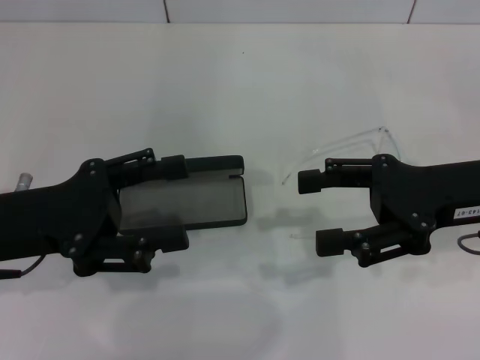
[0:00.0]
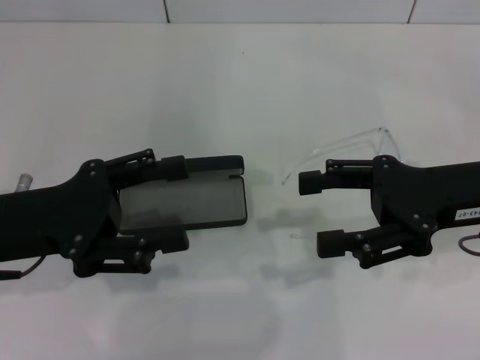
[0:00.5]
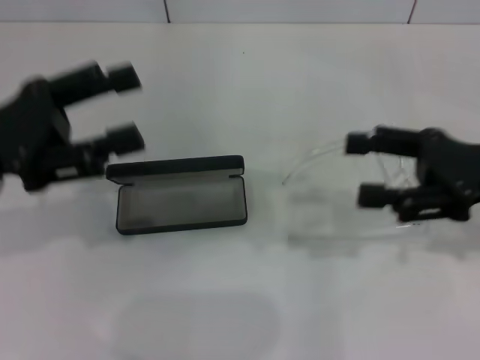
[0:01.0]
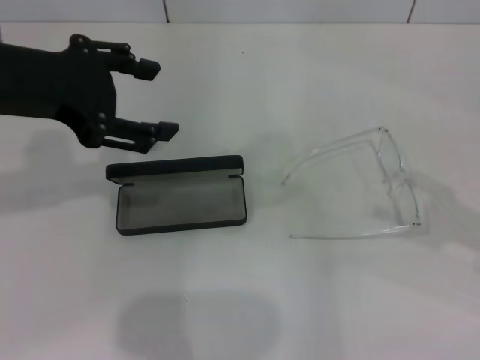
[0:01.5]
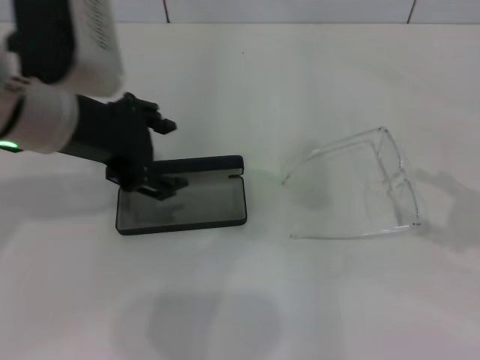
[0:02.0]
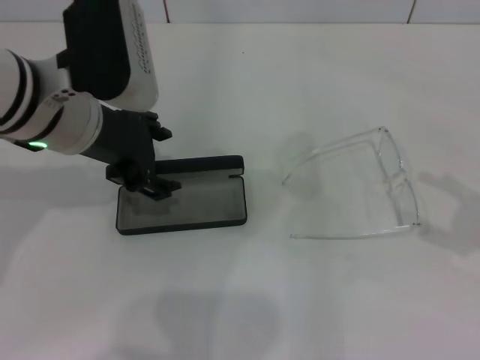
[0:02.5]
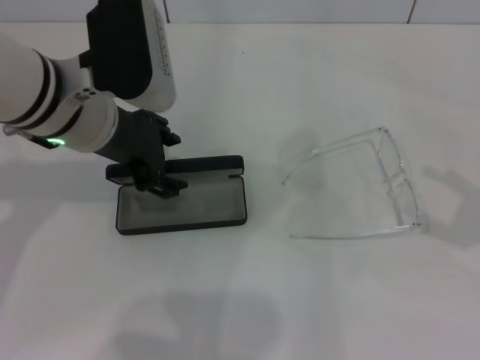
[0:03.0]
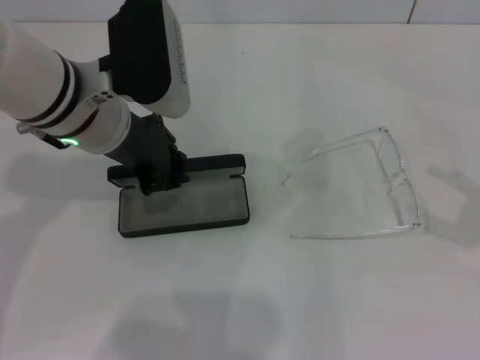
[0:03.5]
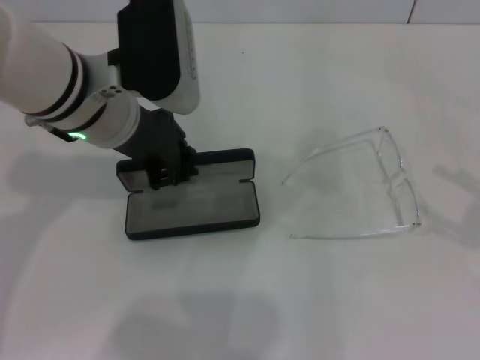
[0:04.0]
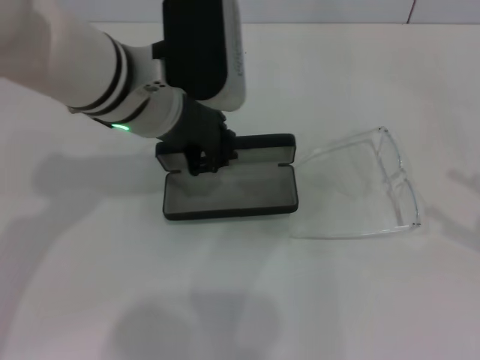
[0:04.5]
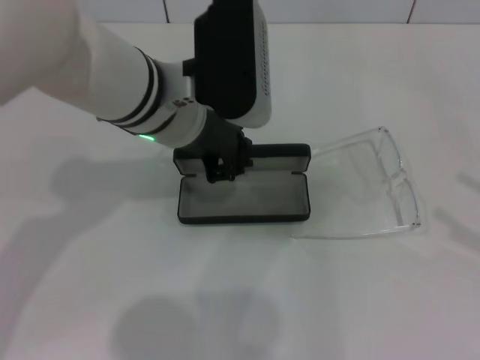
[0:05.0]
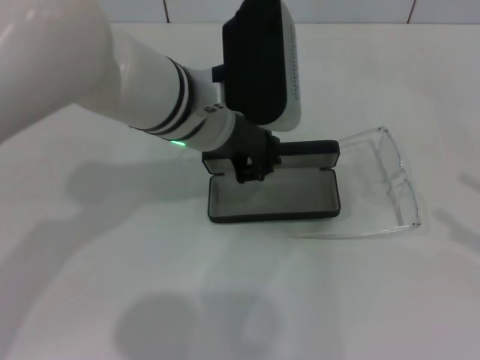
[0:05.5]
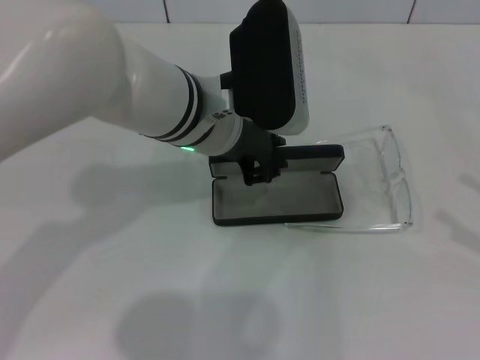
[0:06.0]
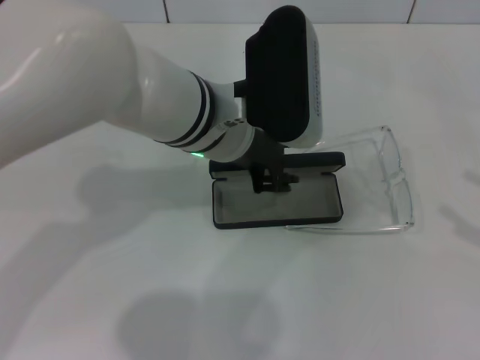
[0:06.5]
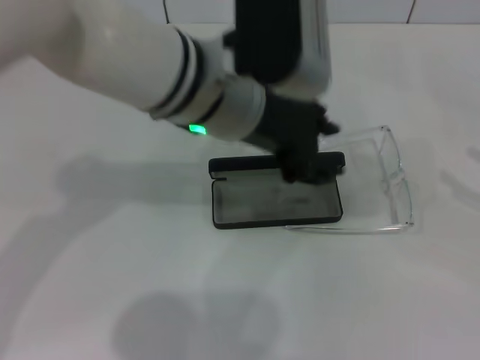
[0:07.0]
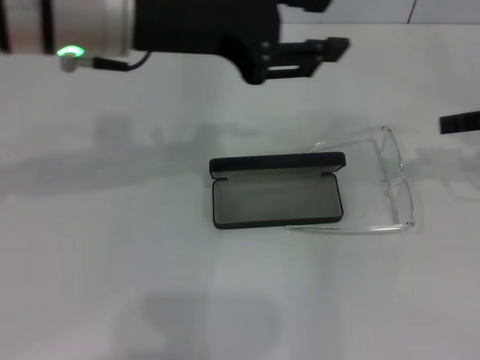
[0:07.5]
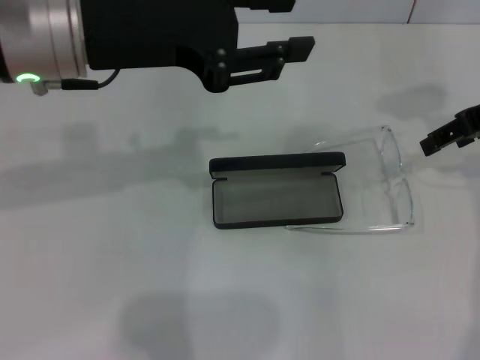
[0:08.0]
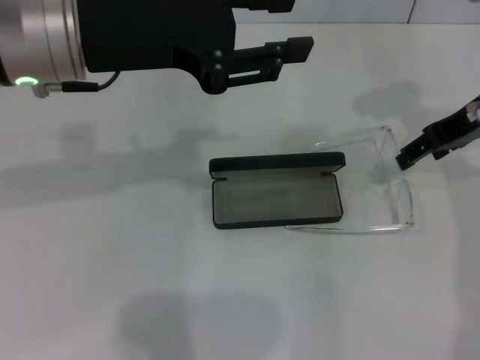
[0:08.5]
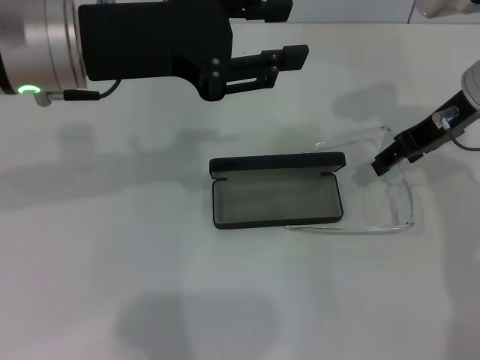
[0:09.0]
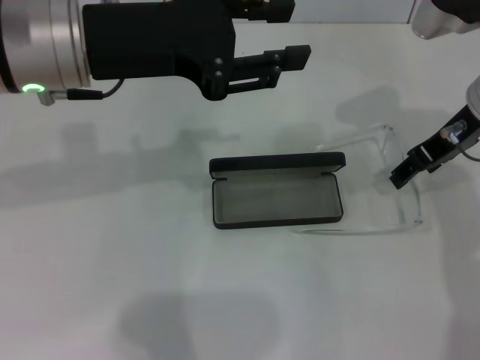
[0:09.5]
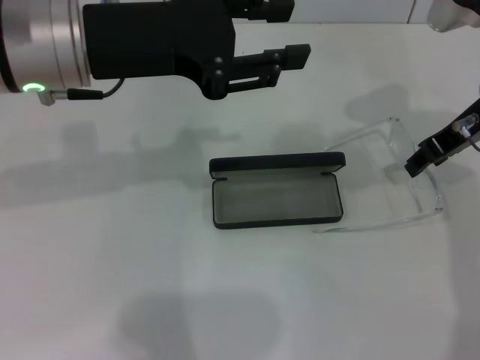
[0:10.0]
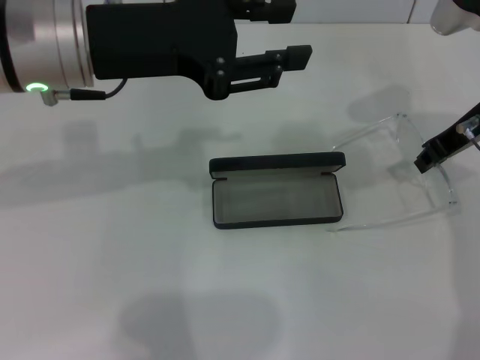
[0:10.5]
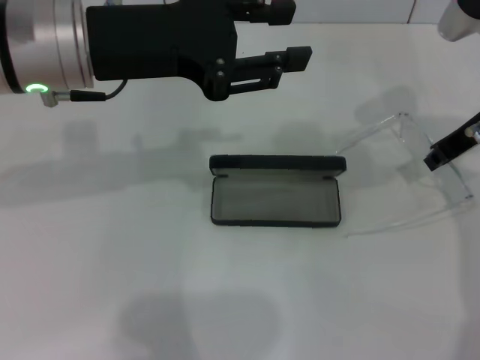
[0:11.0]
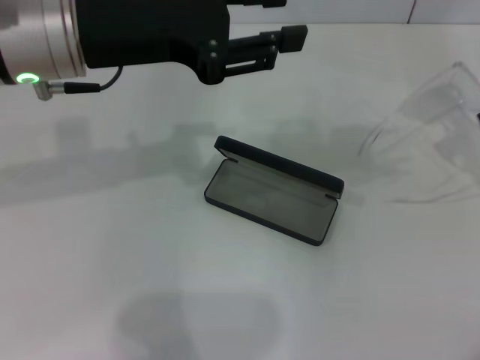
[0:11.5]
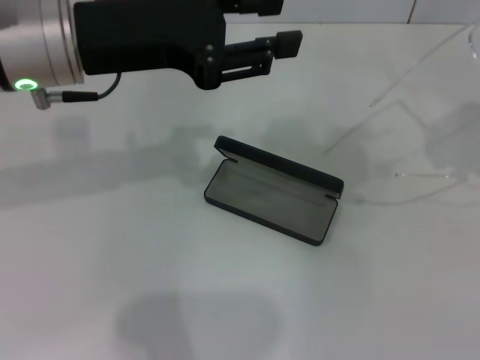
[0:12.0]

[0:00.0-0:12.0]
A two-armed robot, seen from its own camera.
Step, 0:00.0 to 0:03.0: Grab the glasses case with your left hand.
Step, 0:04.0 to 0:06.0: Place the glasses case in the center of the table with your left hand.
Step, 0:06.5 to 0:10.0: Grab the eyeglass frame with your right hand.
0:00.0 to 0:02.0: The left gripper moves upward, to the right and forward, approximately 15 cm; the right gripper is displaced to the right and backward by about 15 cm.
0:02.0 to 0:04.0: The left gripper changes place by approximately 5 cm, and closes its fingers.
0:04.0 to 0:06.0: The left gripper heads to the right, covering some 10 cm.
0:06.0 to 0:08.0: The left gripper moves to the left and upward, roughly 15 cm, and opens its fingers. Meanwhile the right gripper shifts roughly 25 cm forward, to the left and upward.
0:08.0 to 0:10.0: The right gripper shifts by roughly 5 cm.
0:10.0 to 0:12.0: The right gripper goes roughly 15 cm to the right, upward and backward, and closes up.

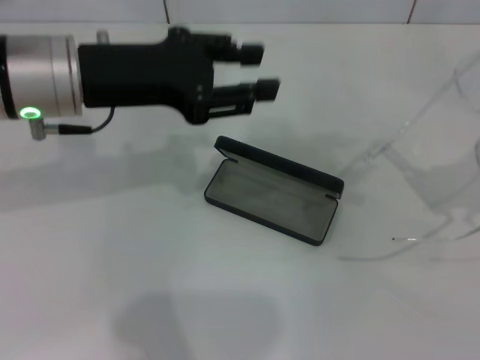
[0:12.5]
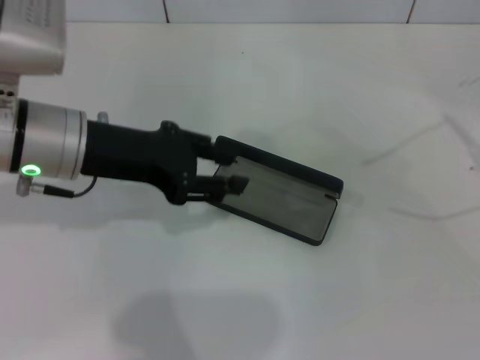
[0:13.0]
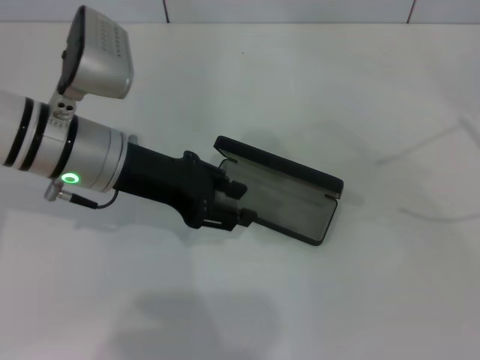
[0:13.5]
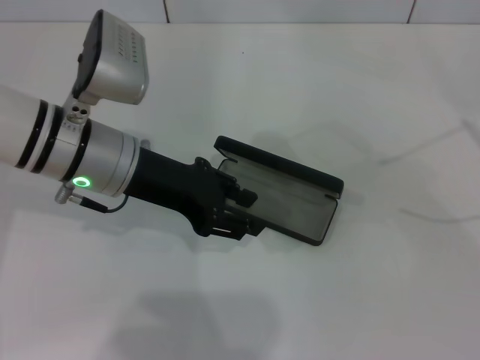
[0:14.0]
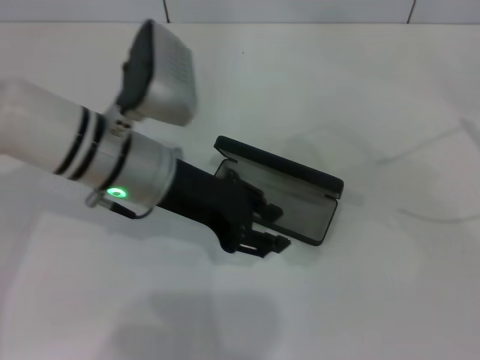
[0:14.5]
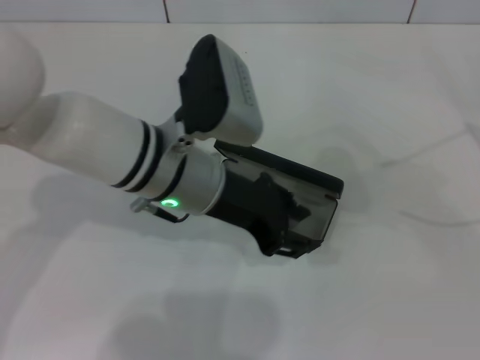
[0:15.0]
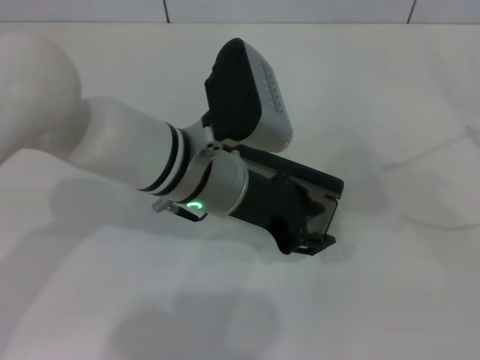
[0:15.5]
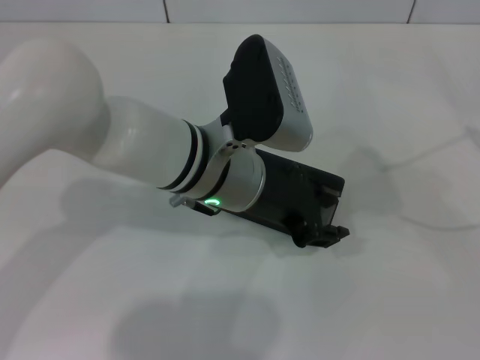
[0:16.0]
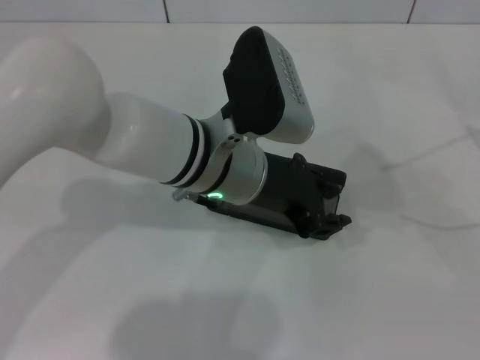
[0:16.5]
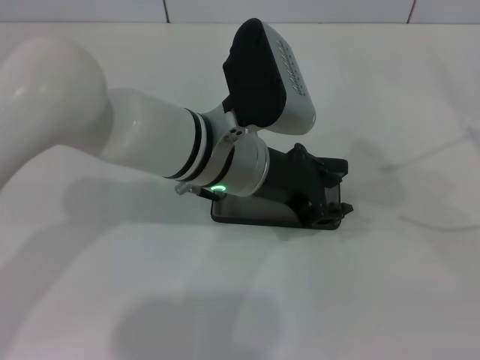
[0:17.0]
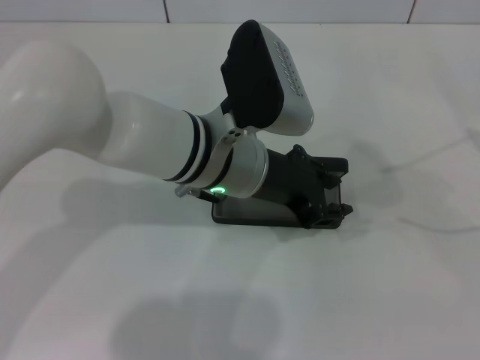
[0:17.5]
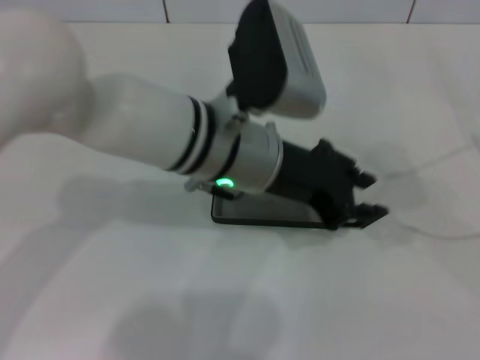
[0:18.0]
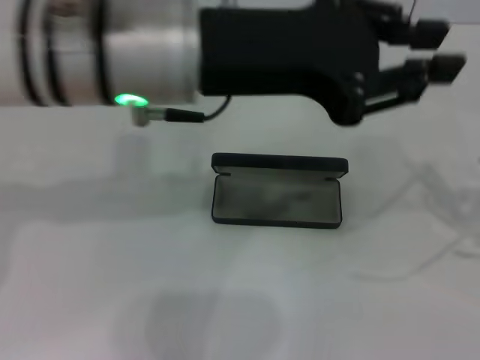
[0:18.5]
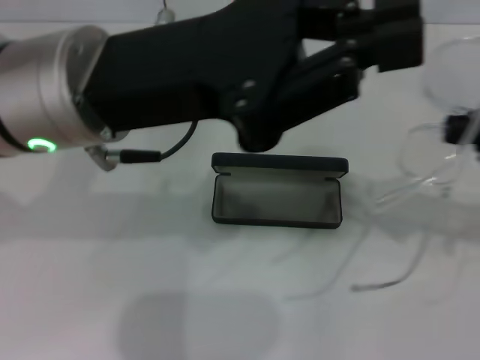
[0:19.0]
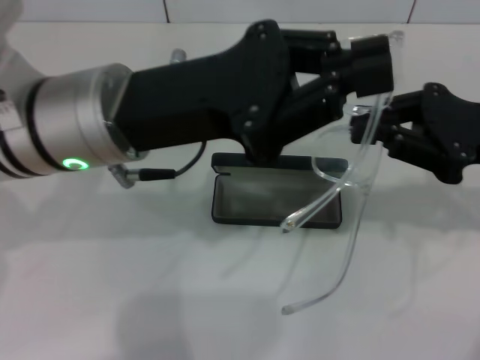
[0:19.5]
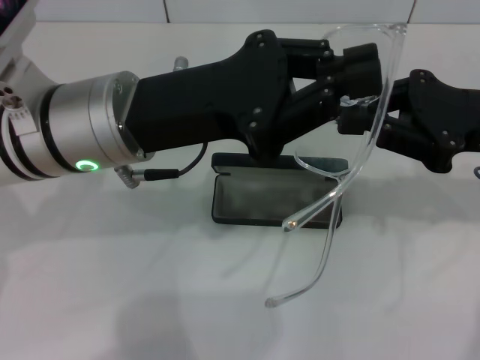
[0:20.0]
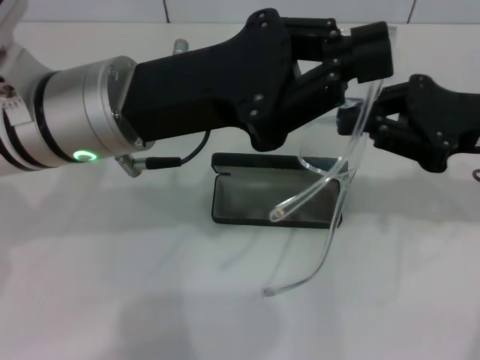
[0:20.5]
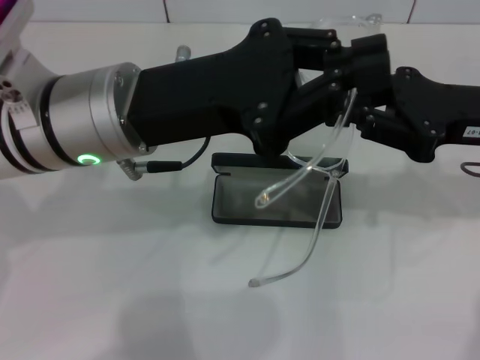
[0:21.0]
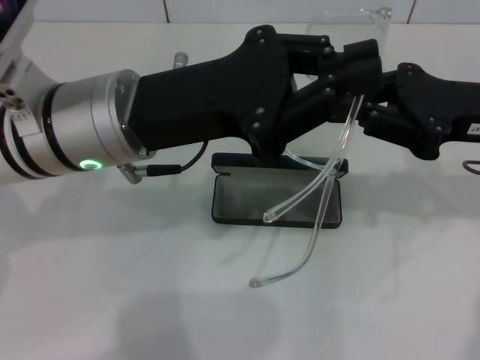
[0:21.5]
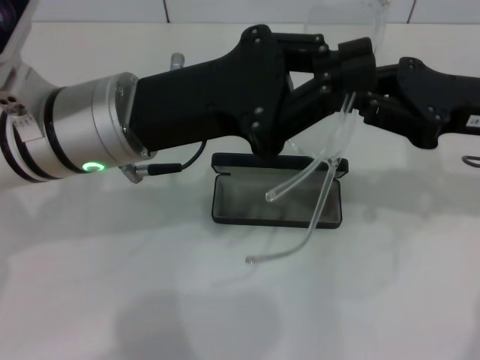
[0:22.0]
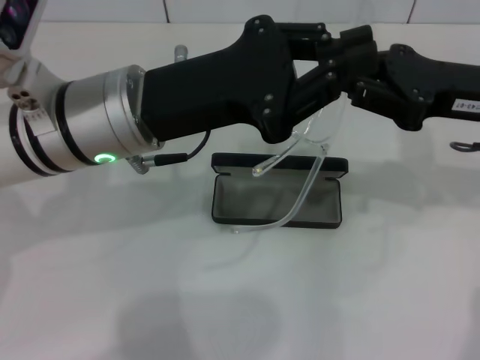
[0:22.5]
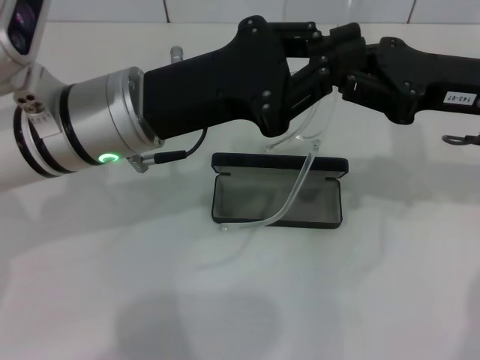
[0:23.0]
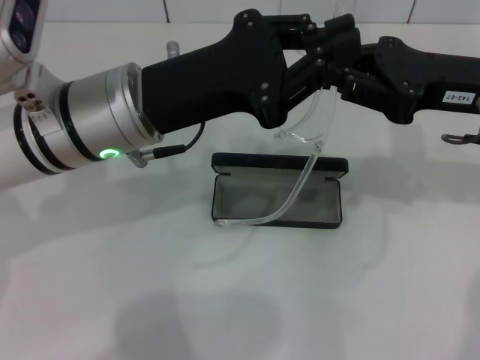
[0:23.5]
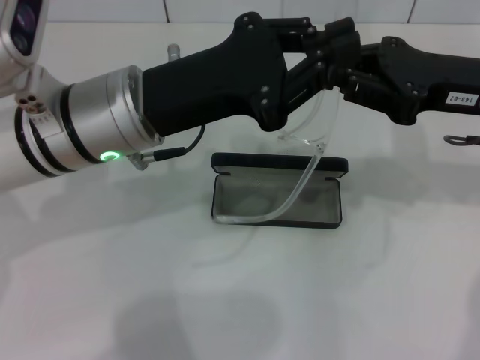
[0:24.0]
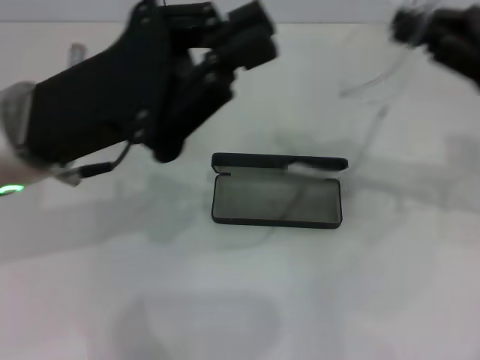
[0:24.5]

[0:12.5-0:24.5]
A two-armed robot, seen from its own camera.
0:12.5 to 0:14.5: The right gripper travels to the right by about 10 cm; the left gripper moves downward and to the right, about 10 cm.
0:14.5 to 0:16.5: The left gripper travels to the right by about 10 cm.
0:16.5 to 0:18.5: The left gripper shifts about 15 cm upward.
0:18.5 to 0:20.5: The right gripper travels to the left and forward by some 20 cm. Meanwhile the left gripper heads downward, covering approximately 5 cm, and closes.
0:20.5 to 0:22.5: The grippers make only small movements.
0:22.5 to 0:24.5: The left gripper ends up some 5 cm from where it was.

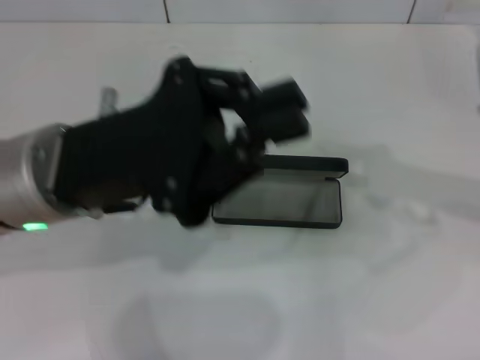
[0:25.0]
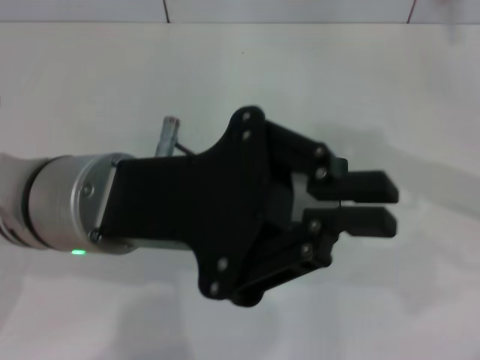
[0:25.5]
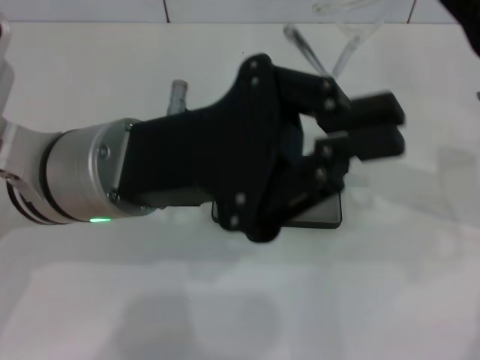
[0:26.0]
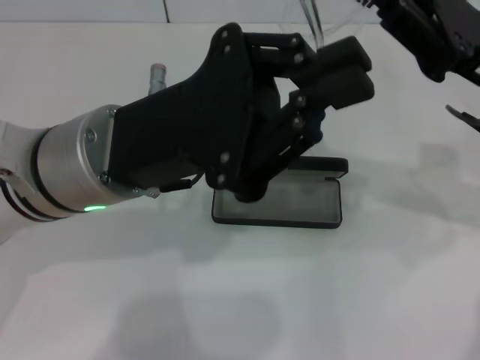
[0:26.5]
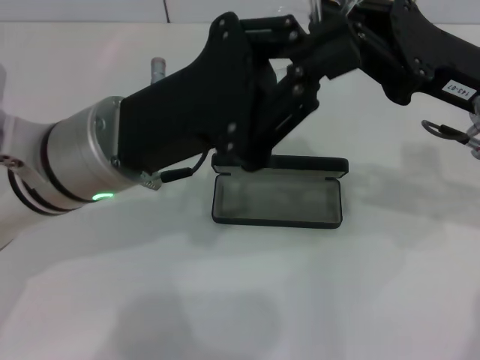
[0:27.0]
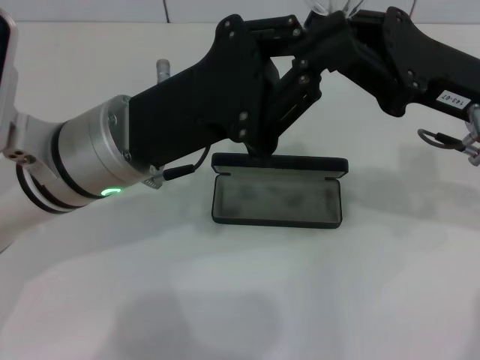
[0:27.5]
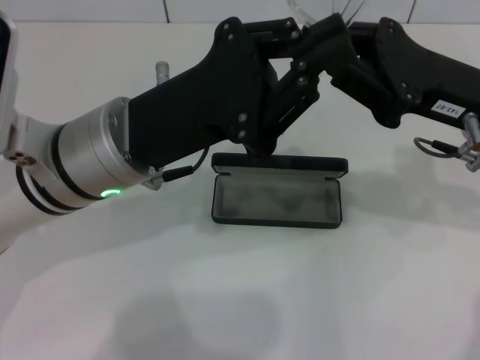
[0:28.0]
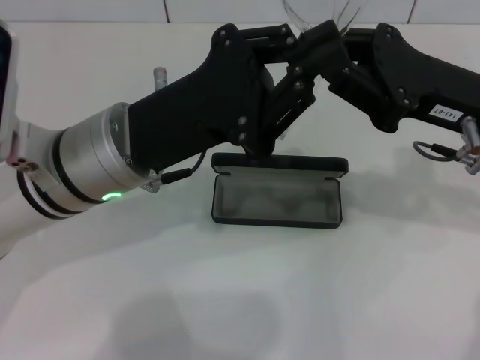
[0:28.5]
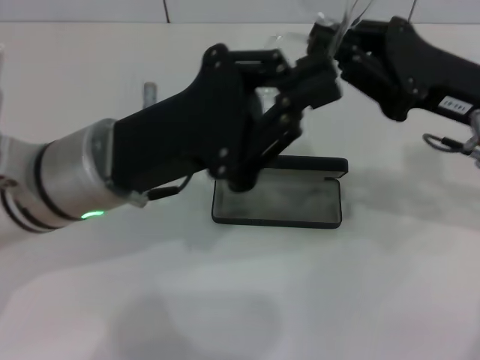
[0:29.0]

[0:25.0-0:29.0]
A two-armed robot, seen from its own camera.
Step, 0:25.0 to 0:28.0: Fold the frame with your left hand.
0:25.0 to 0:27.0: The right gripper goes about 10 cm to the left.
0:27.0 to 0:29.0: The grippers stay close to where they were, moving slightly.
